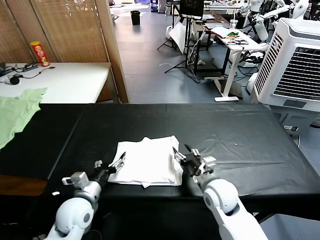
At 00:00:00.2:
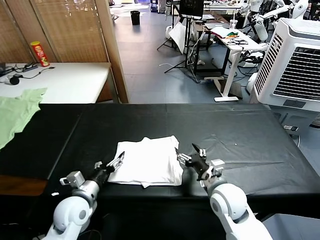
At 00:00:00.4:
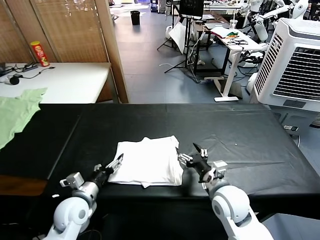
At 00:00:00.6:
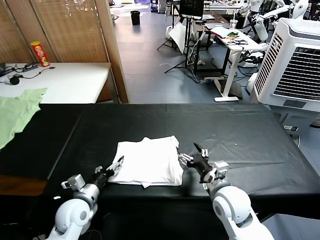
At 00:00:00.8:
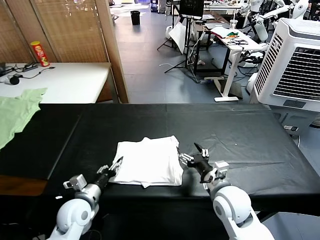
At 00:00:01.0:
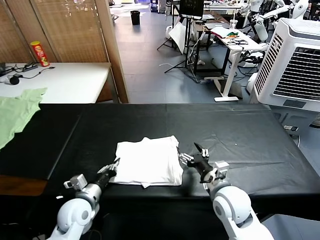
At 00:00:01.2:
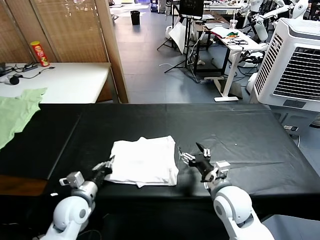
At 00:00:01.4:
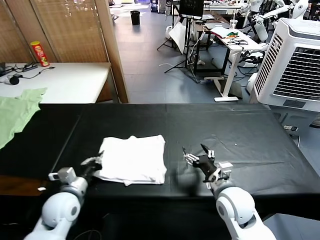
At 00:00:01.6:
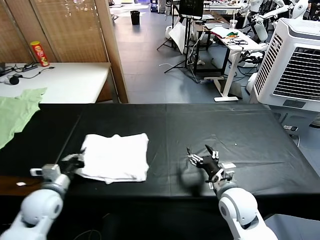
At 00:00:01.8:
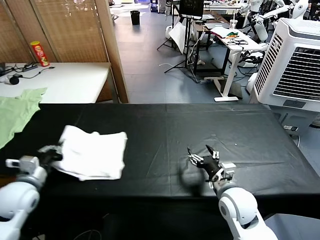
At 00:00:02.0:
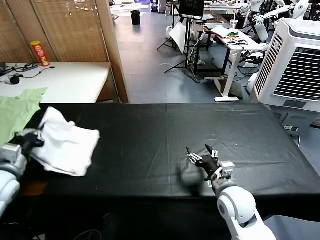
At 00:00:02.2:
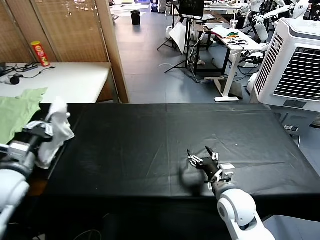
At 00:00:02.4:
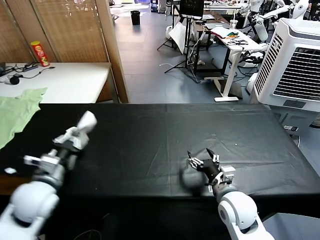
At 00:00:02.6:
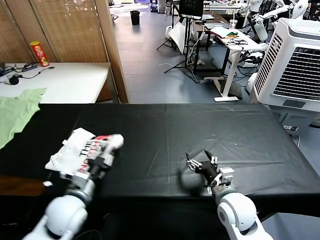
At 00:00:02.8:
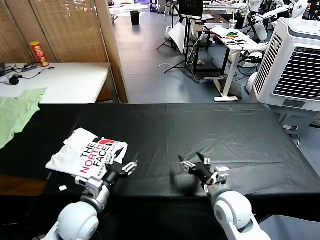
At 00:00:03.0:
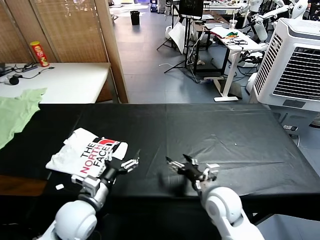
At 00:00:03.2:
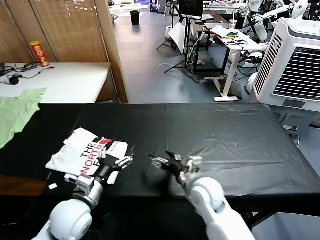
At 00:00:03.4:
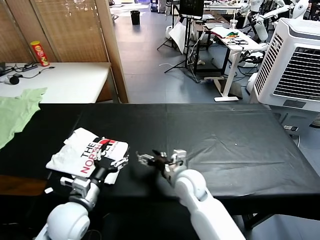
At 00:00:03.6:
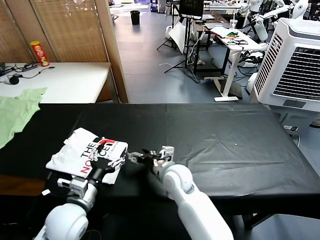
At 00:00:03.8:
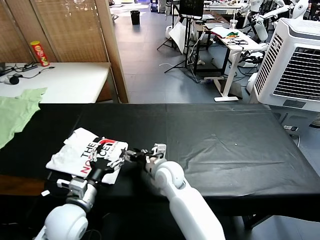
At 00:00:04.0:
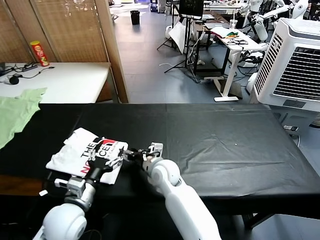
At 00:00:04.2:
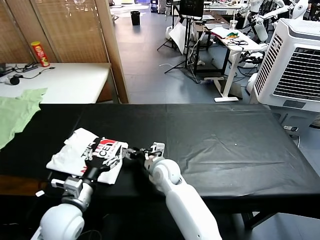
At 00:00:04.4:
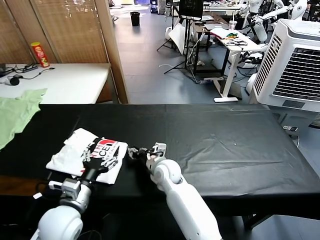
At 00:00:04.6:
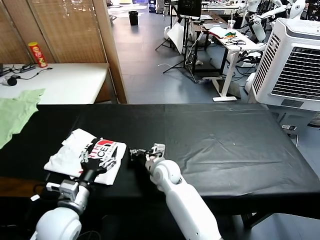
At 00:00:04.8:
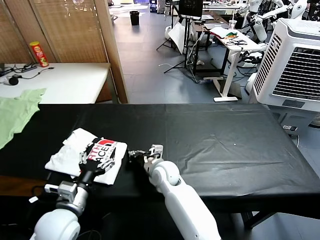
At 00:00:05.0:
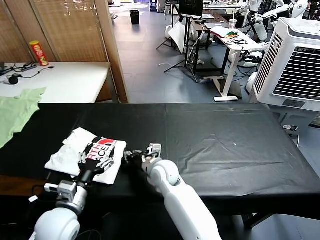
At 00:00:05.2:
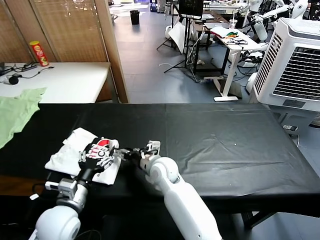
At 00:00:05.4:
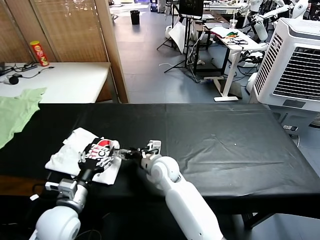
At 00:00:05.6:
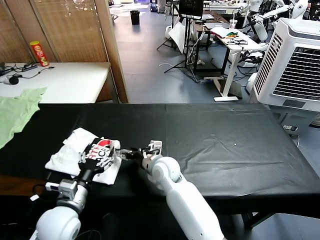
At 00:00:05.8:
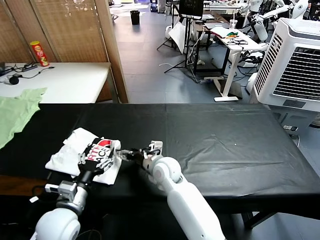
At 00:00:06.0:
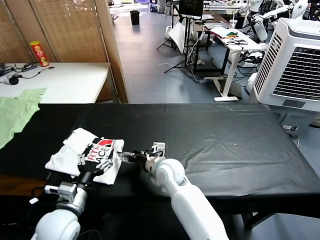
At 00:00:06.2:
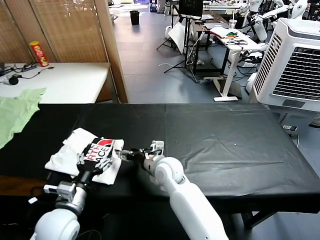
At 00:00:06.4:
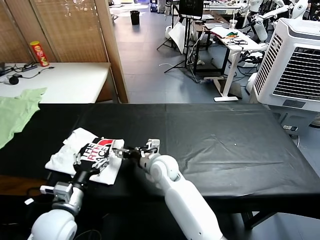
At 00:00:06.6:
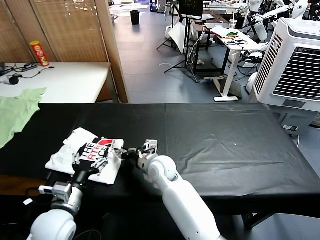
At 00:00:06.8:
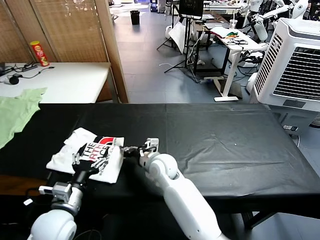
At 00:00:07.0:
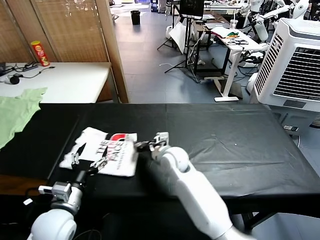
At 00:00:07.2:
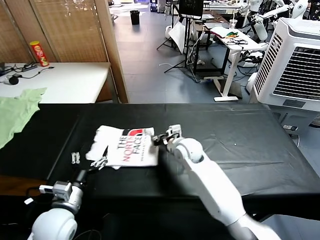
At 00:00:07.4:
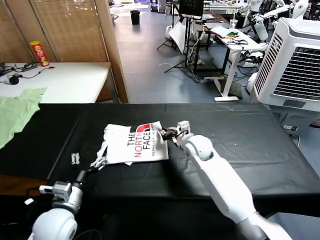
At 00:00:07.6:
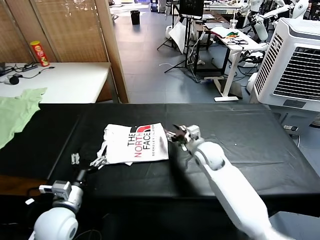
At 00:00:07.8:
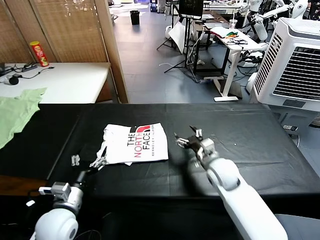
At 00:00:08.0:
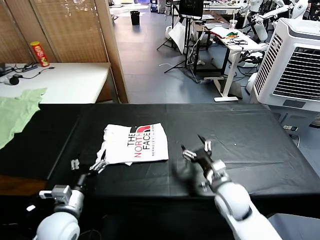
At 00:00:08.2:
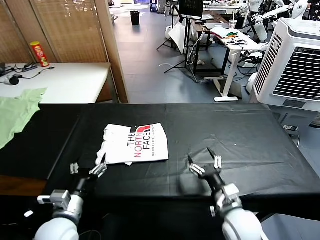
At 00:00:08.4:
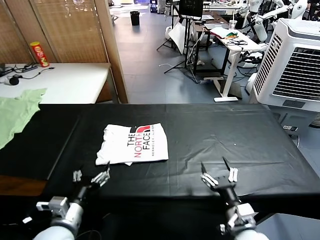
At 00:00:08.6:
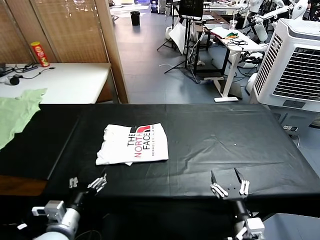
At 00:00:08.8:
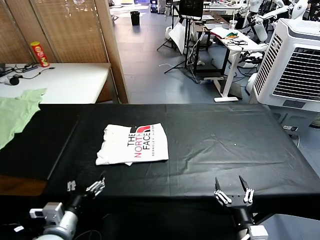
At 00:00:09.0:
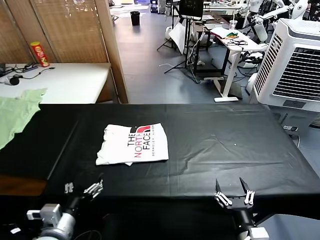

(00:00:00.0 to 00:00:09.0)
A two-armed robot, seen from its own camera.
Task of the whole recording: fold and organize the clothes.
Step, 00:00:00.0 - 00:00:02.8: Flip the folded clothes over with left gripper.
Step, 00:00:03.0 - 00:00:07.6: Drag the clothes to the center of the table.
00:00:00.0 - 00:00:01.6: The left gripper heads to the left, covering approximately 10 cm, and closes its fingers.
00:00:01.6 - 00:00:03.0: The left gripper moves to the right, about 15 cm, and opens.
00:00:03.0 - 00:00:04.4: The right gripper moves to the left and forward, roughly 20 cm, and closes up.
00:00:04.4 - 00:00:06.0: The right gripper opens up.
00:00:06.0 - 00:00:07.6: The right gripper moves to the right and forward, approximately 15 cm, and closes its fingers.
00:00:07.6 - 00:00:09.0: The right gripper moves backward, about 35 cm, and opens up, while the left gripper travels backward by roughly 5 cm.
